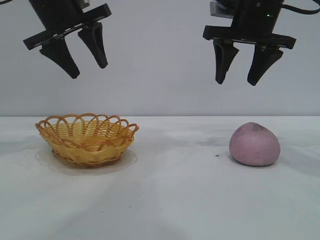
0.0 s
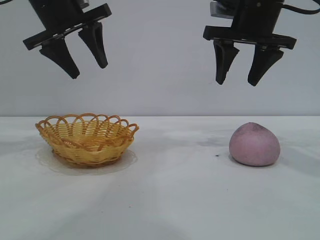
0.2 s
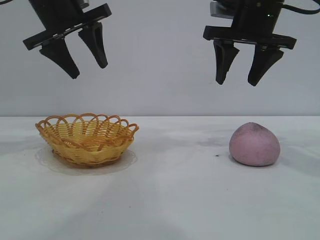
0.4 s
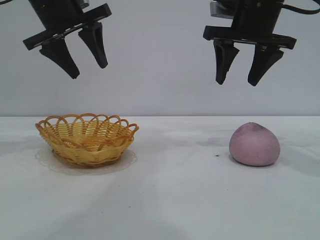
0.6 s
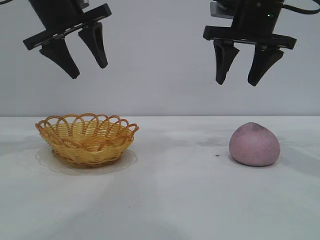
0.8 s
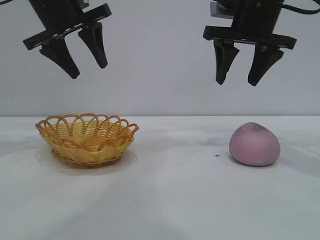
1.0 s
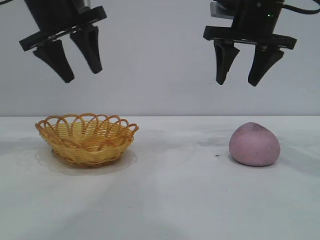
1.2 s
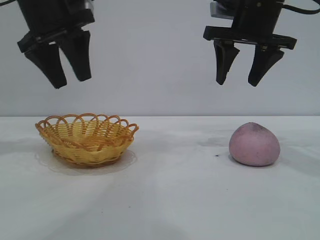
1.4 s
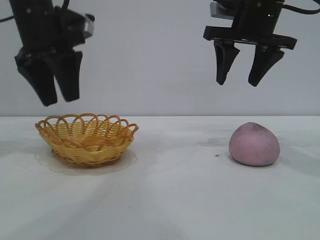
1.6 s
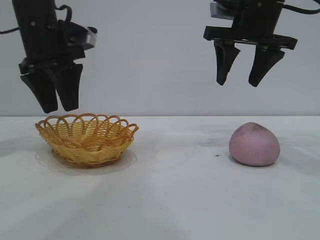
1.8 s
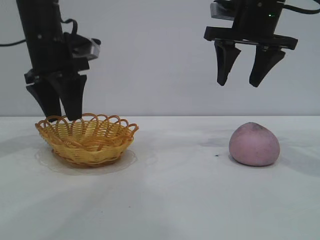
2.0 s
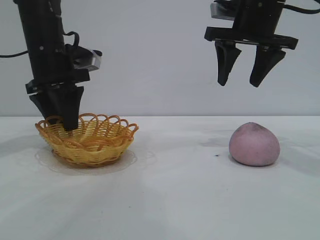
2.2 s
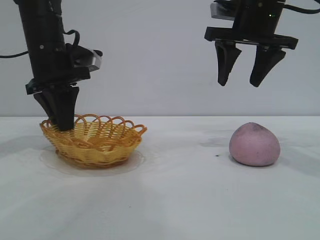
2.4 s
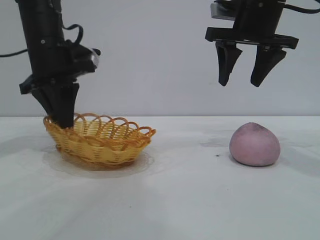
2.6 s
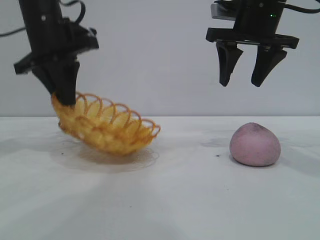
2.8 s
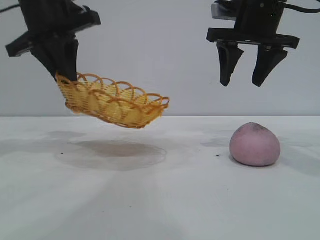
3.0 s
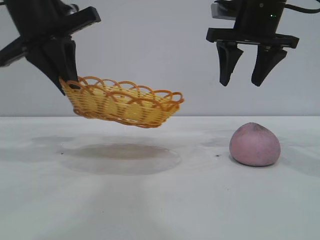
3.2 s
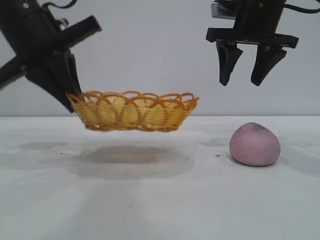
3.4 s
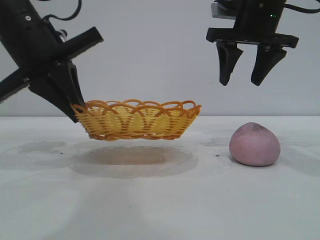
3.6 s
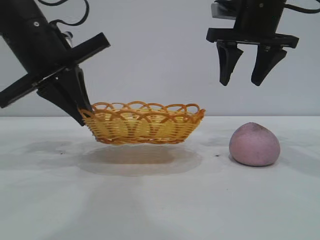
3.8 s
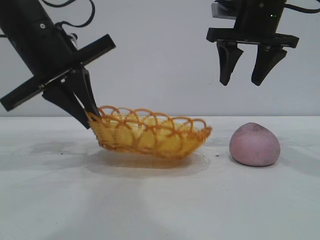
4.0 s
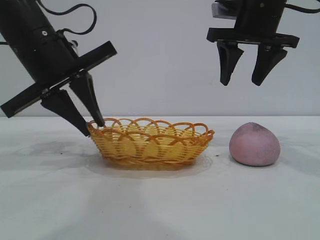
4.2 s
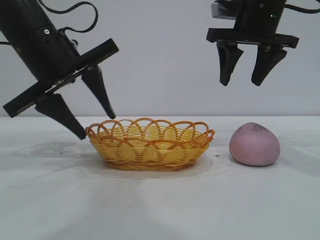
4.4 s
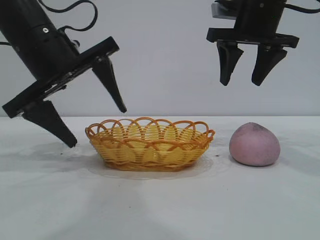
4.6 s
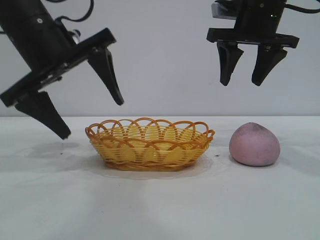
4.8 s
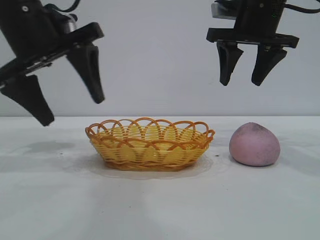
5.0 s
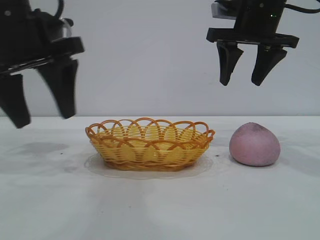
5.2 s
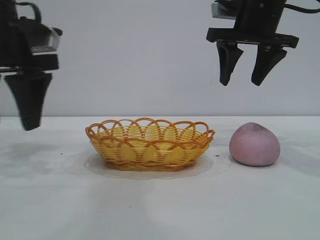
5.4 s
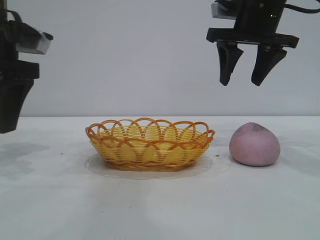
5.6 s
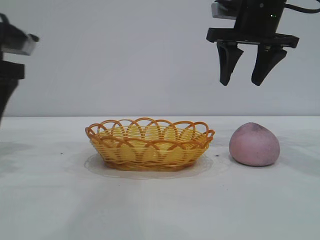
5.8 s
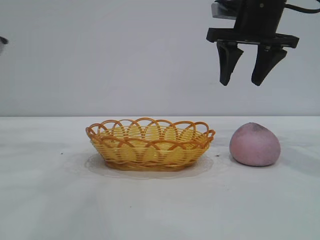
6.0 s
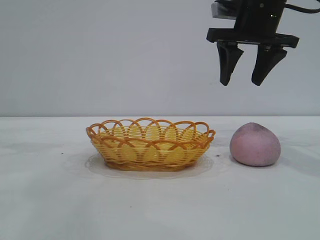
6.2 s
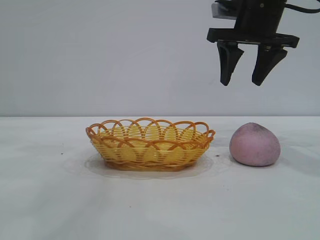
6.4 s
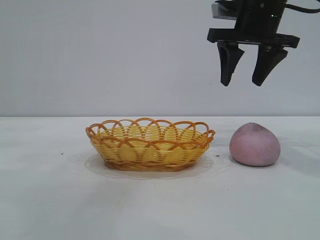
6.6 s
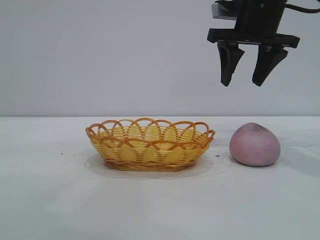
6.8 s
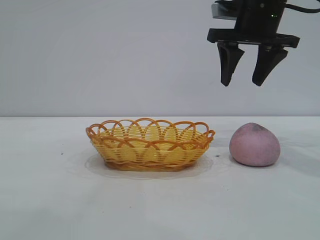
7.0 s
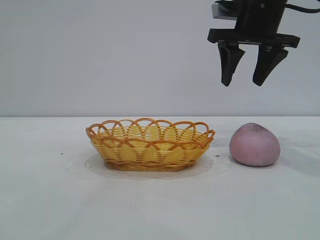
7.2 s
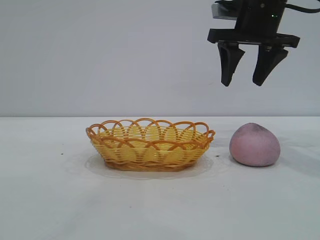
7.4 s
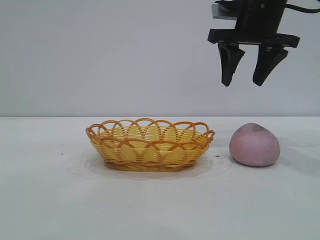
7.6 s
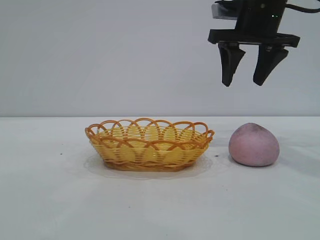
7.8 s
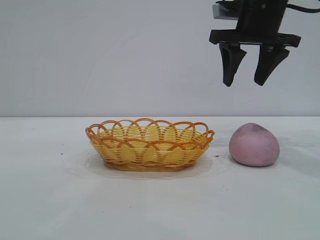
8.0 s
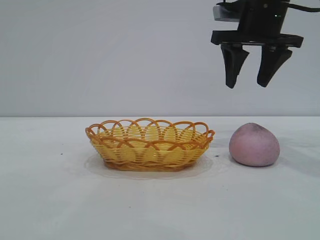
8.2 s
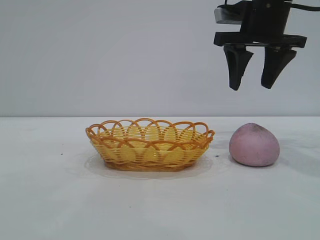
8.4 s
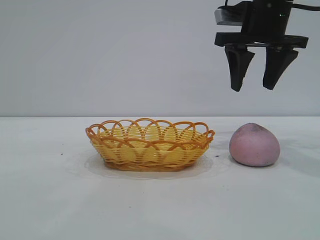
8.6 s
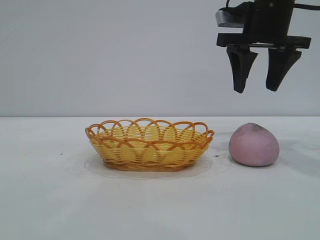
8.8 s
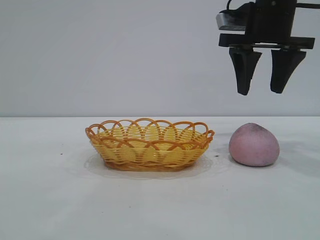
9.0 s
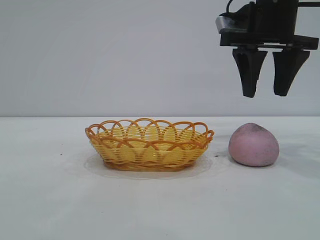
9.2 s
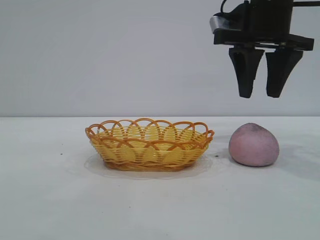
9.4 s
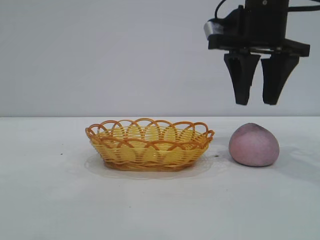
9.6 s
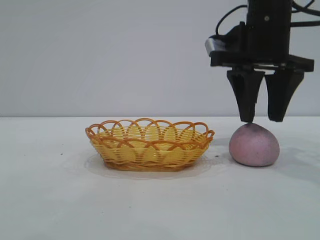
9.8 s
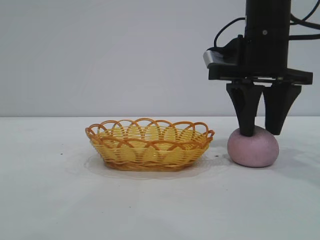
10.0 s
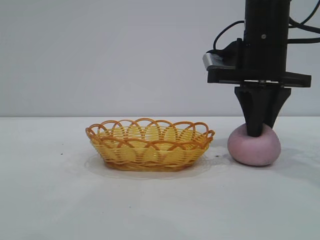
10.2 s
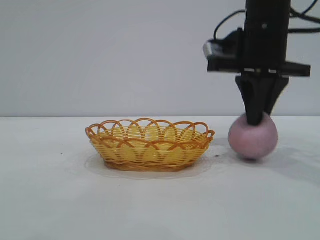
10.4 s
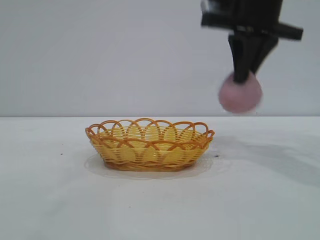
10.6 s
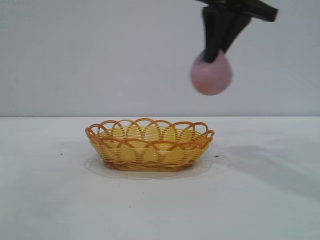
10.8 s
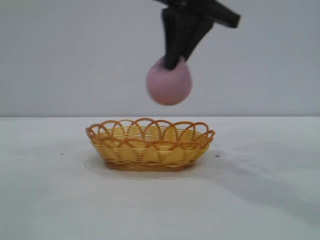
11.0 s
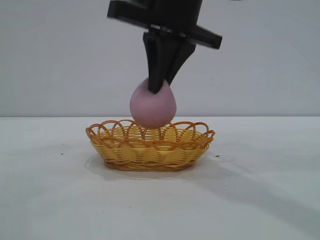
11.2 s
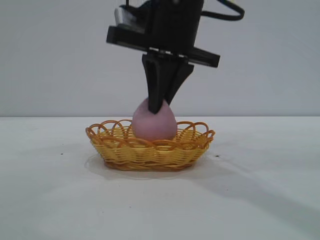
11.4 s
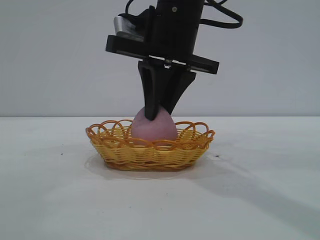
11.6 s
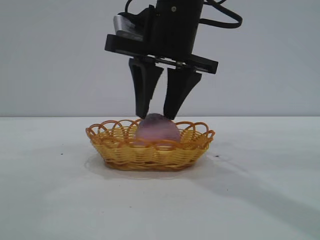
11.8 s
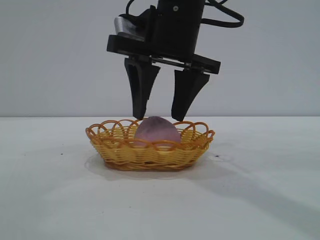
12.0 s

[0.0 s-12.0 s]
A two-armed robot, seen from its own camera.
Task of the whole recording: pick up the peach and put it into the basket.
Step, 0.0 to 5.2 s: Move the basket to the center of view.
Step, 5.4 to 10.6 s: Pick up the peach.
